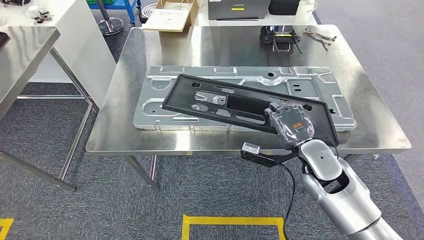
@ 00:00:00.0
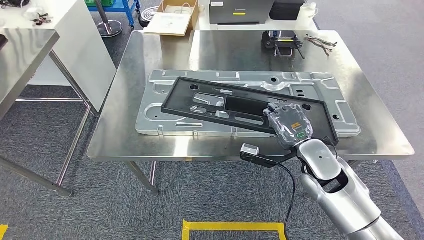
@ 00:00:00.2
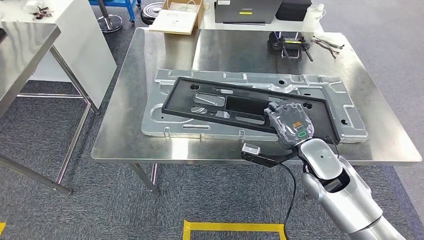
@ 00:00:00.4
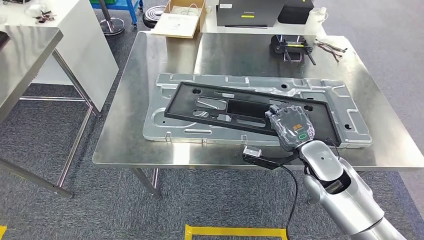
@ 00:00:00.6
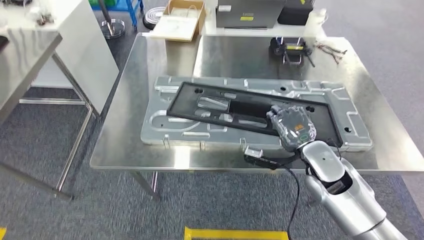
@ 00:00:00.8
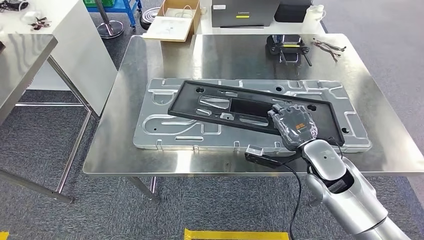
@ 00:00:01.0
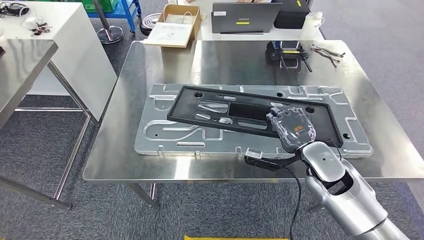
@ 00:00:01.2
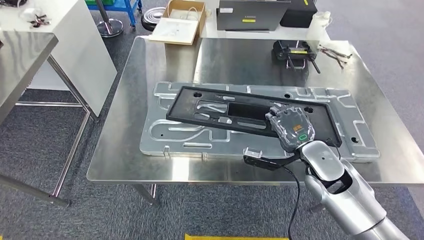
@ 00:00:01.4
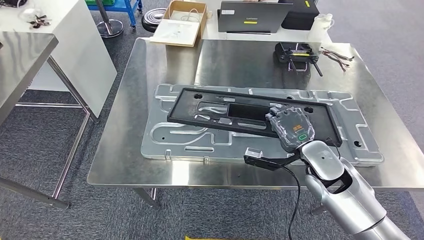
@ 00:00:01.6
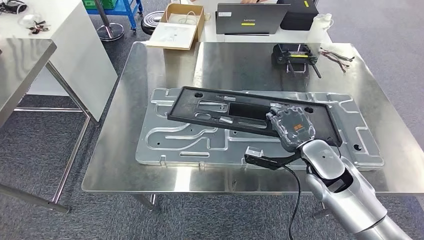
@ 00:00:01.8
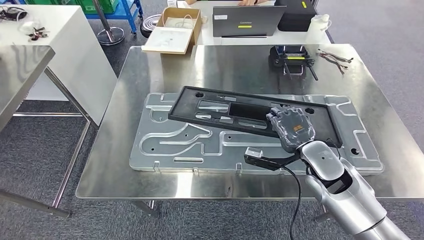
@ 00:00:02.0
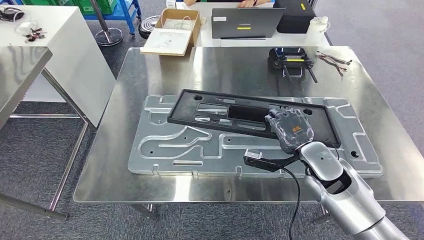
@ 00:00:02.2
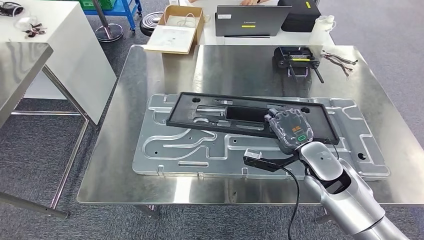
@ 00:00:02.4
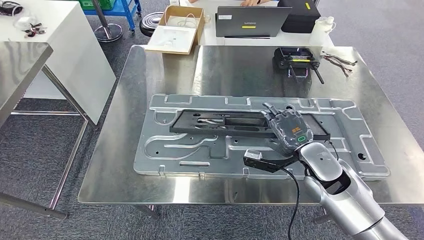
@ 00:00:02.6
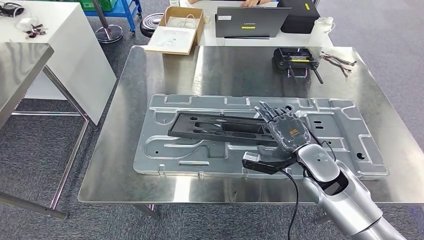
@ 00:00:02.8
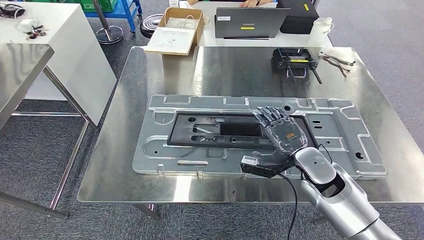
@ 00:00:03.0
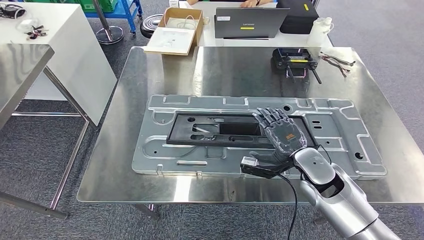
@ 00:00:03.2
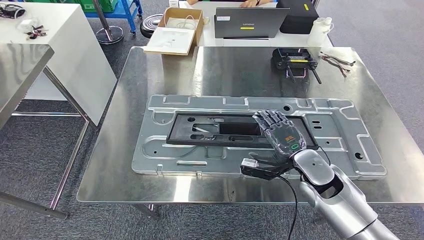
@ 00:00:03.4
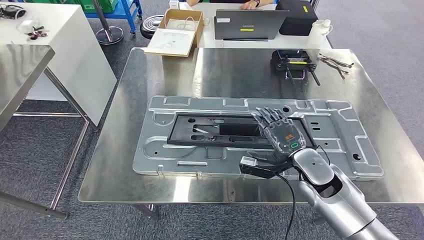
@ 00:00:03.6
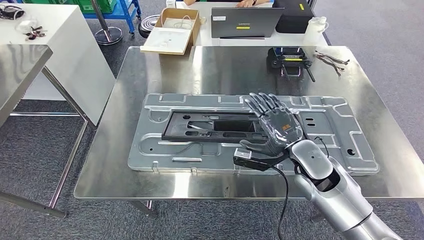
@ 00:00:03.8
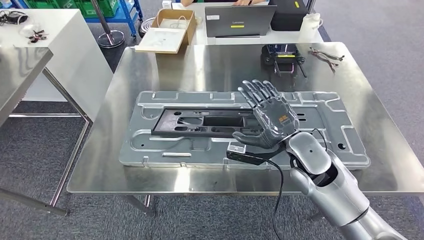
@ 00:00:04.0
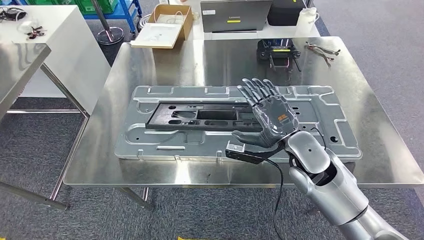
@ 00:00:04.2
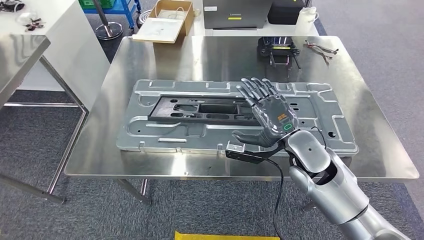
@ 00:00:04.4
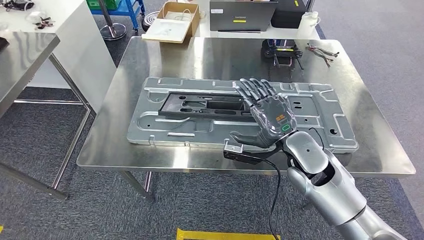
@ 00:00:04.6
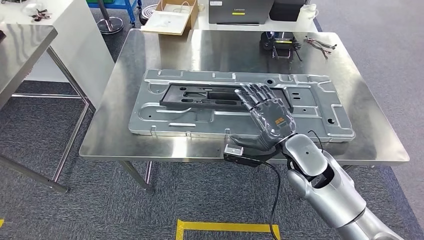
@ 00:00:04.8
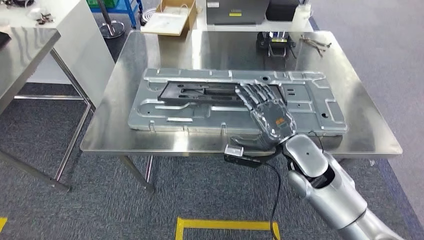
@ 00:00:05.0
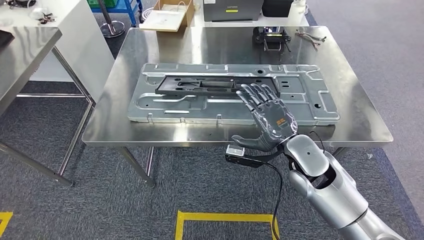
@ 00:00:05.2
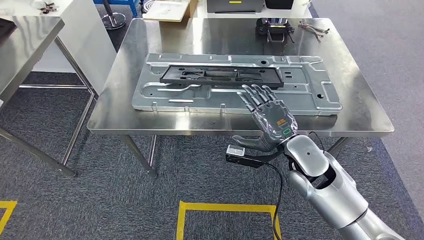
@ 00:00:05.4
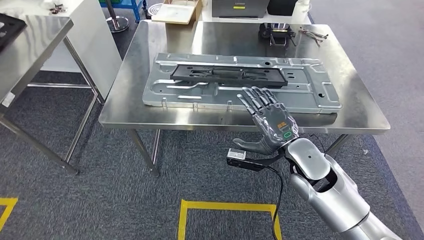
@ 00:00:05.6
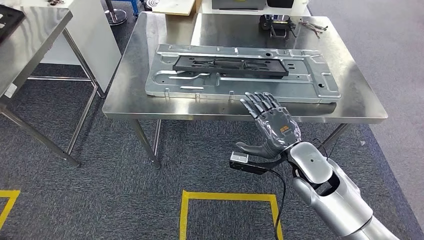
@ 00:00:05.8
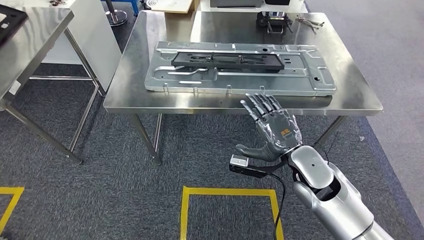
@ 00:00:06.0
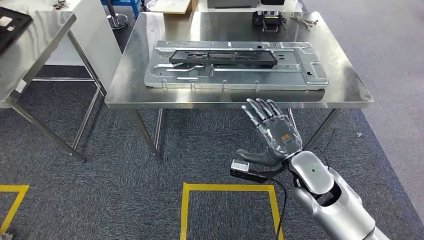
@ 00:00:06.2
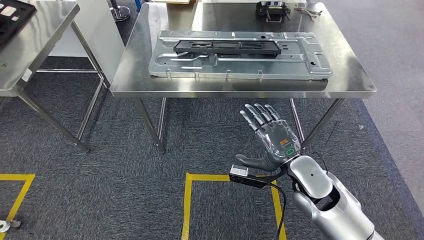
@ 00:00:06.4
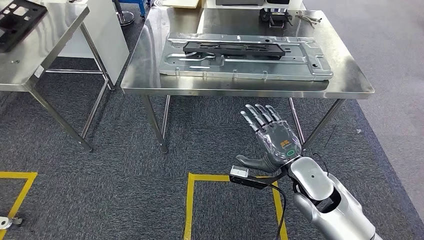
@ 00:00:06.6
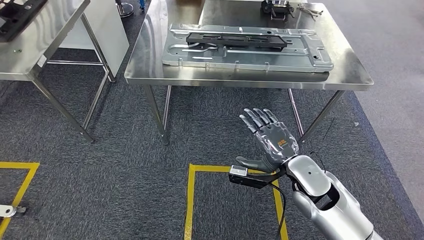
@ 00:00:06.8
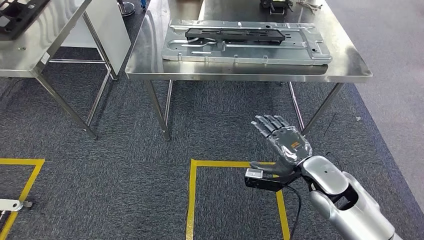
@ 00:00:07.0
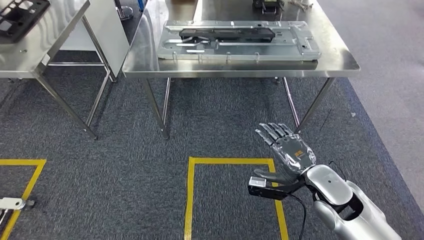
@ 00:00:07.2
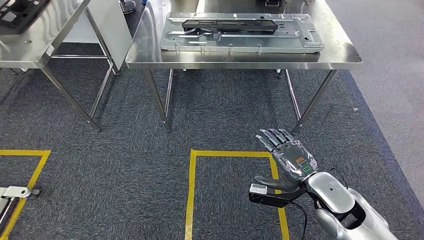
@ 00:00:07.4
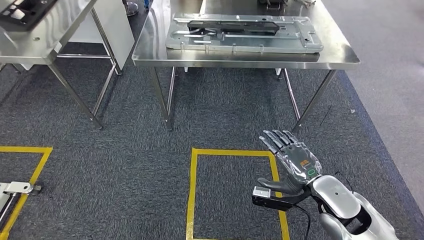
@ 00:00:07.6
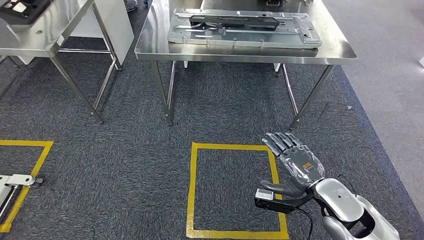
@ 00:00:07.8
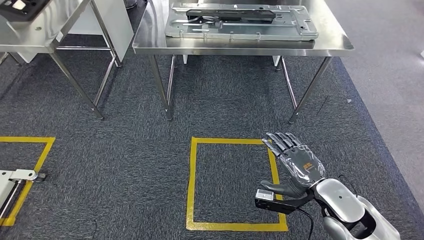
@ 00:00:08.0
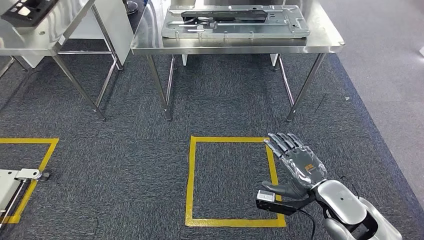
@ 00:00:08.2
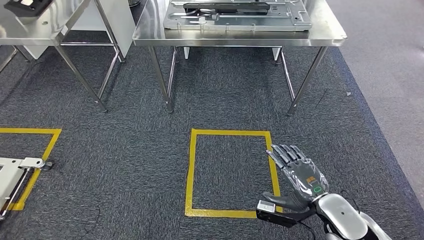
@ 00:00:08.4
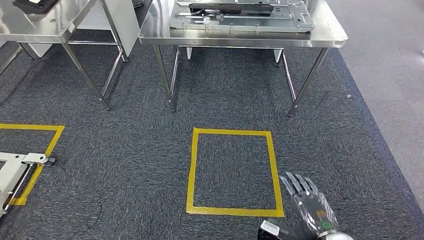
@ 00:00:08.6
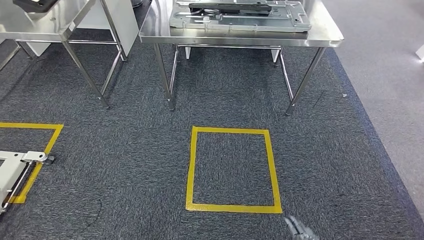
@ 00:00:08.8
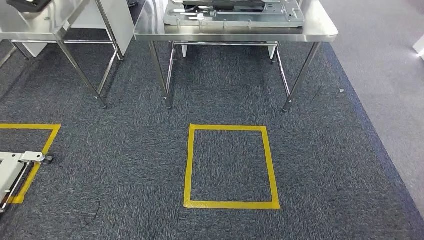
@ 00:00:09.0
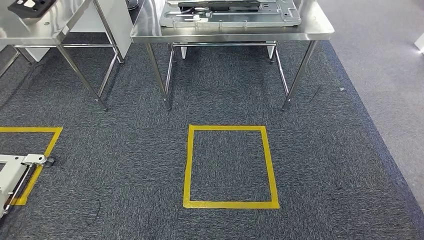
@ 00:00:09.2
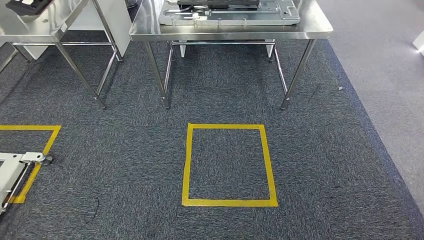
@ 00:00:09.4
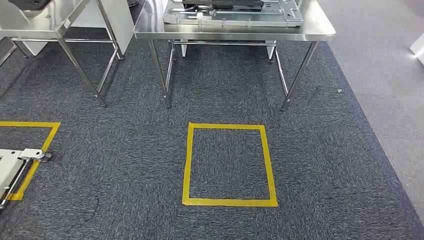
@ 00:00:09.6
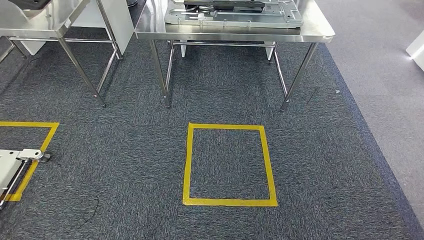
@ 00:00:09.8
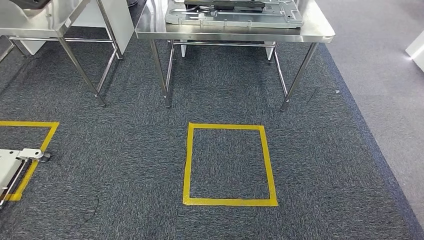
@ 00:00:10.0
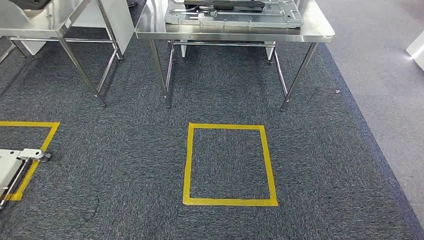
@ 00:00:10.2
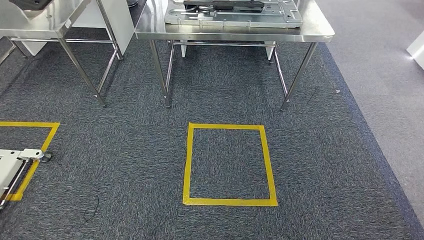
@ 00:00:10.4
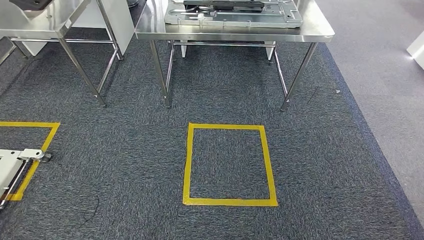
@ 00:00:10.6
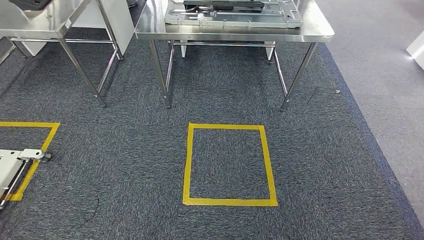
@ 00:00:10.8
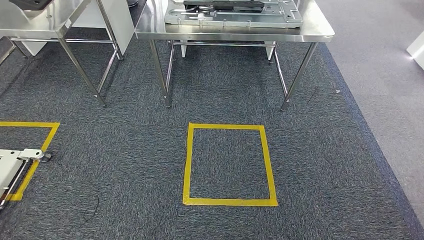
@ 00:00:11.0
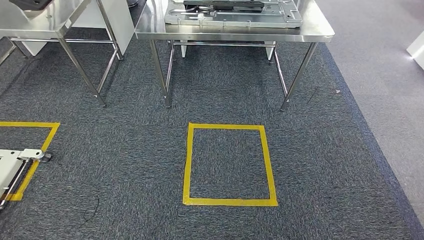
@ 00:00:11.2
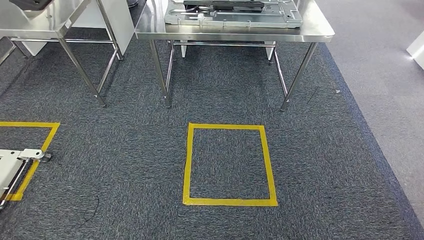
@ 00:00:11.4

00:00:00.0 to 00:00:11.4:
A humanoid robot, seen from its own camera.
Step, 00:00:00.0 to 00:00:06.8: Insert the large material into the corresponding slot on the workbench.
Step, 00:00:07.0 to 00:00:11.4: Move to the initial position of the shelf.
